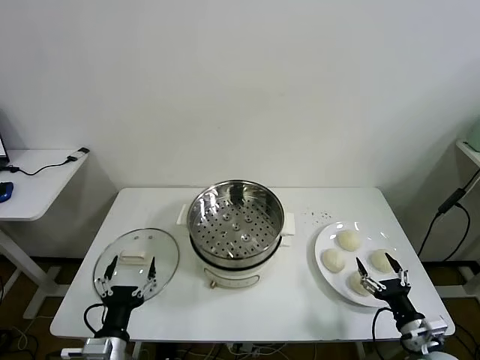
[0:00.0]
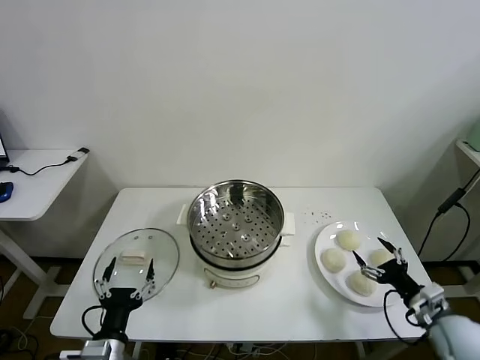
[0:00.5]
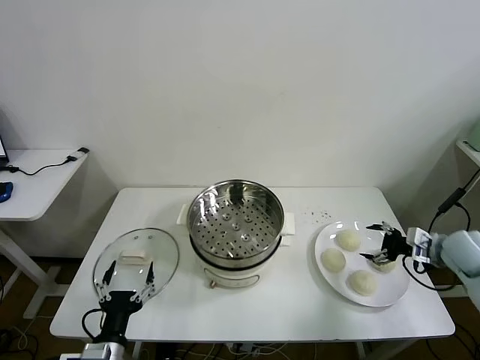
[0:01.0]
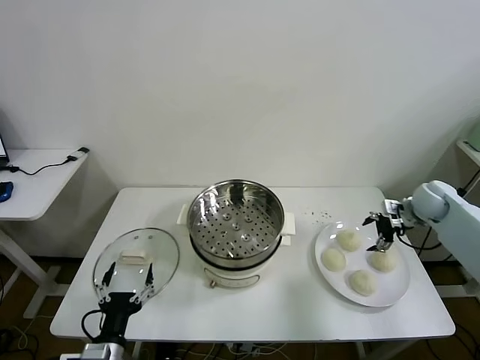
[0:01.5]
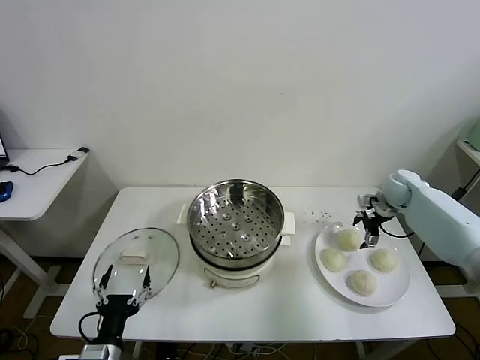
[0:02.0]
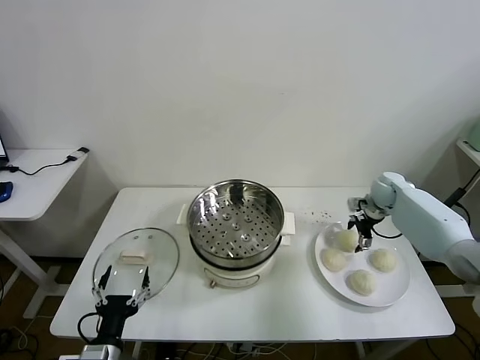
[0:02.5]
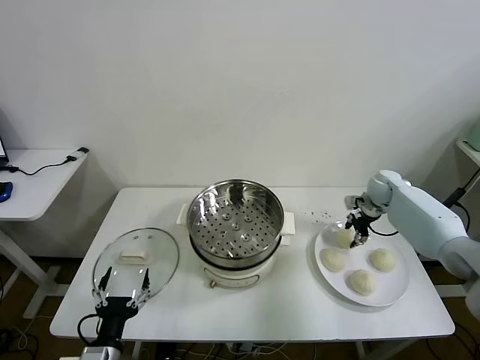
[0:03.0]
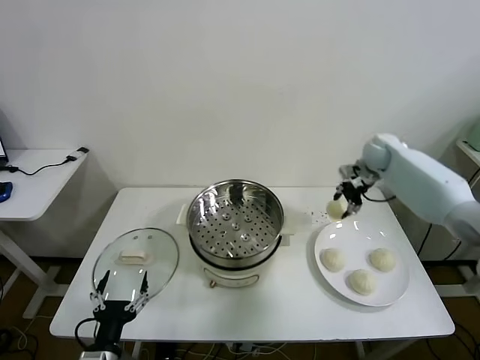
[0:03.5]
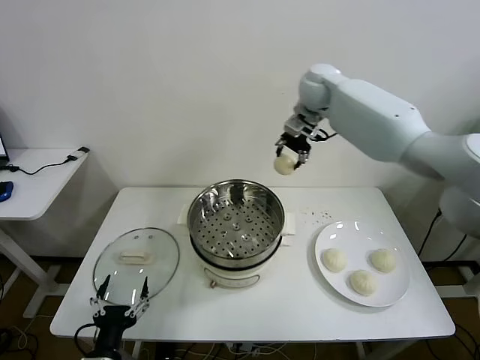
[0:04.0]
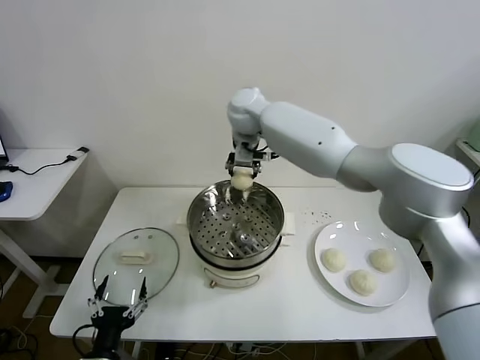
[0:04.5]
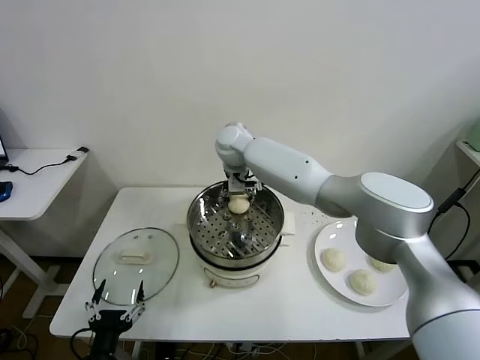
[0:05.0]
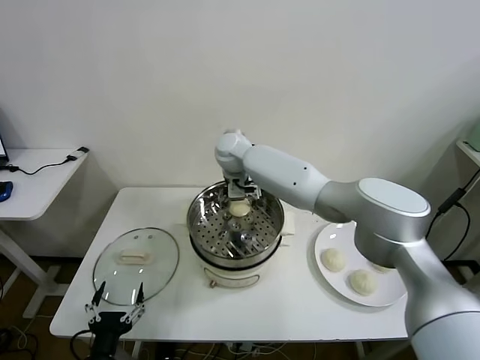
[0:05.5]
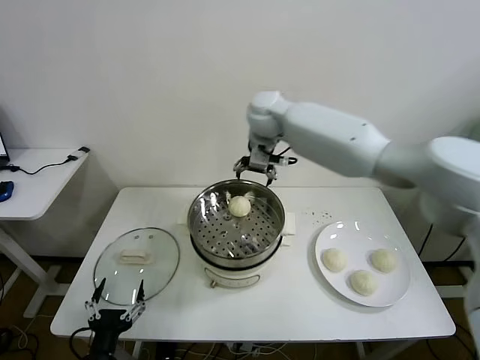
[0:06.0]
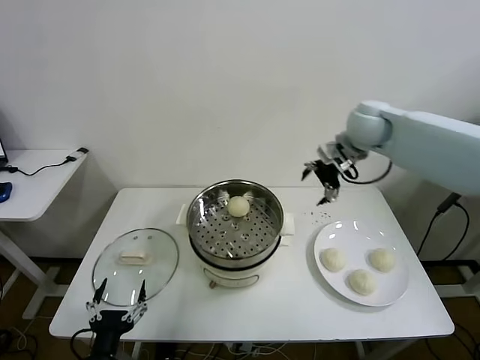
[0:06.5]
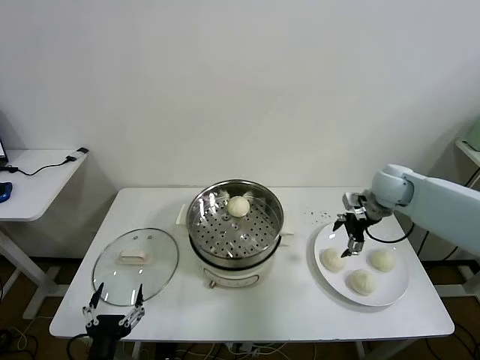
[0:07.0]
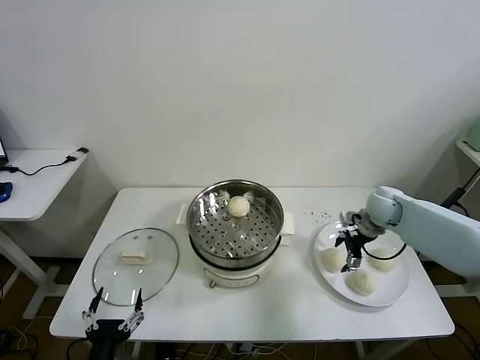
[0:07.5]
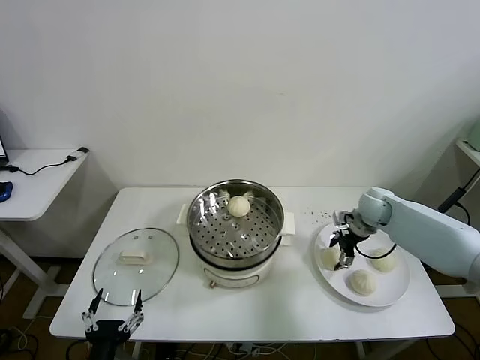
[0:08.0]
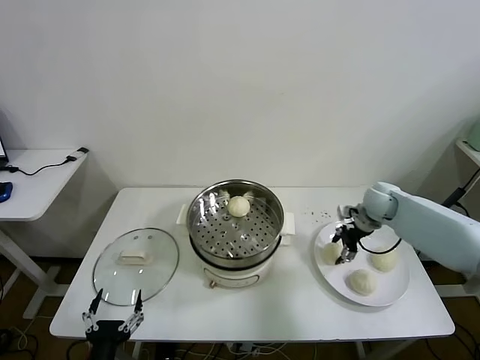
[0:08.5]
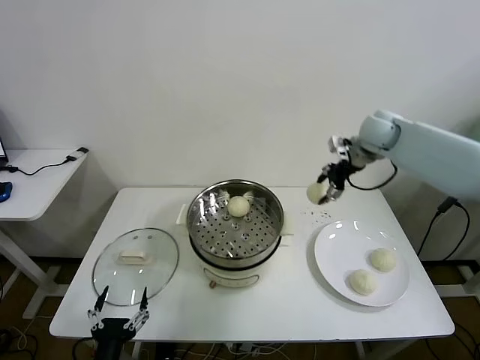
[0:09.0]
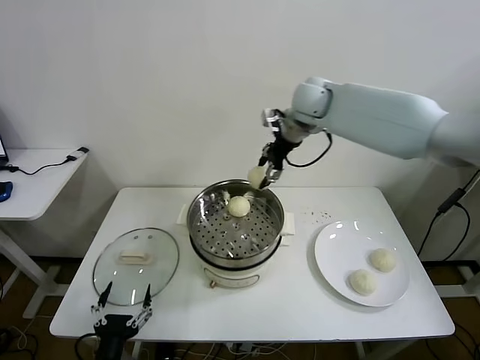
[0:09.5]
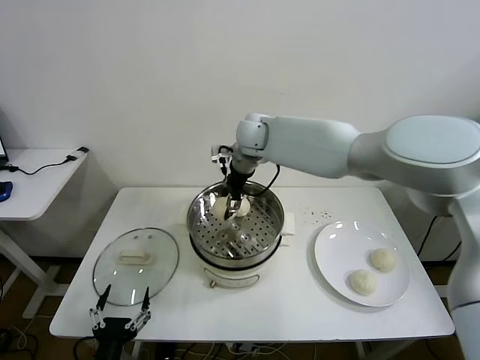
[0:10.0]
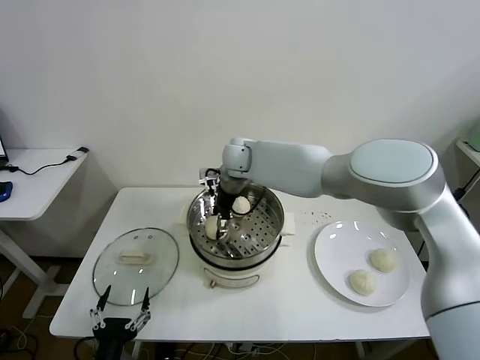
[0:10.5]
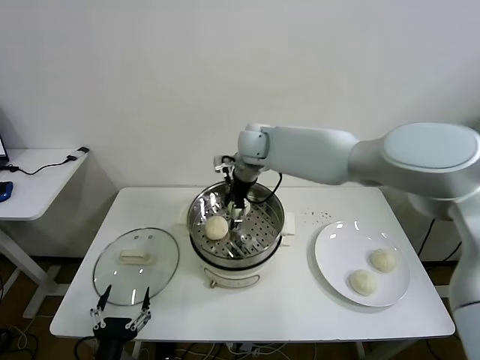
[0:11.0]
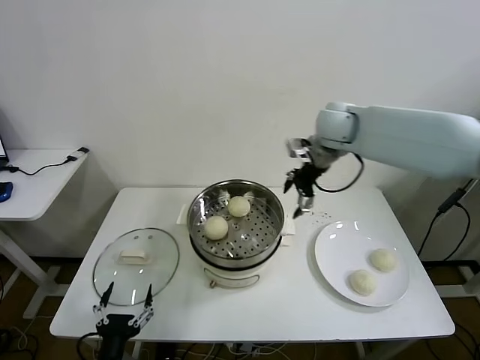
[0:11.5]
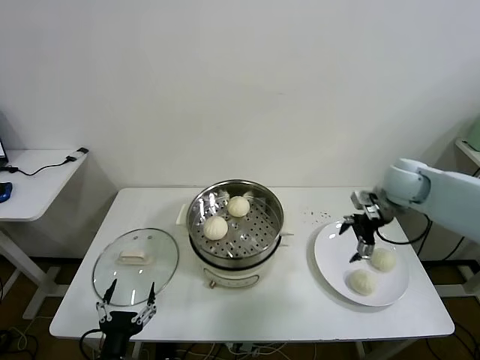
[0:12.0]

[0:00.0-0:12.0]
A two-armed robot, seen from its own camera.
Task of the whole recording: take steamed baozi put them in steamer then cover it.
Step, 0:00.0 to 0:02.5: Grasp the baozi in the plate with right gripper.
Step, 0:03.0 to 0:05.0: Place the baozi on the steamer with right gripper.
Step, 0:05.5 to 0:08.5: Grasp the baozi in the plate with right gripper.
Step, 0:09.0 to 0:11.0: Place the baozi on the steamer with right gripper.
0:02.0 to 0:04.0: The right gripper goes roughly 40 cm to the left and upward, and closes.
0:04.0 to 0:06.0: The right gripper reaches about 15 cm to the left, then returns, and opens.
0:06.0 to 0:08.0: The right gripper is displaced downward and to the right by about 35 cm, and closes.
0:08.0 to 0:10.0: The right gripper heads to the left and upward, covering roughly 40 cm.
0:10.0 to 0:12.0: The right gripper heads to the right, covering some 35 cm, and opens up.

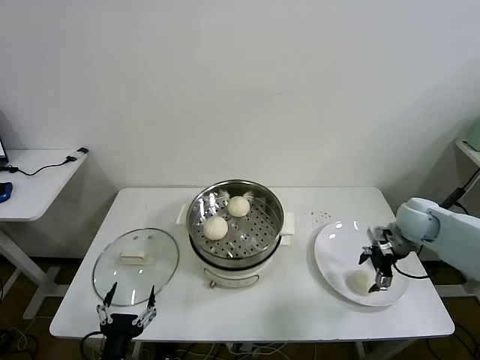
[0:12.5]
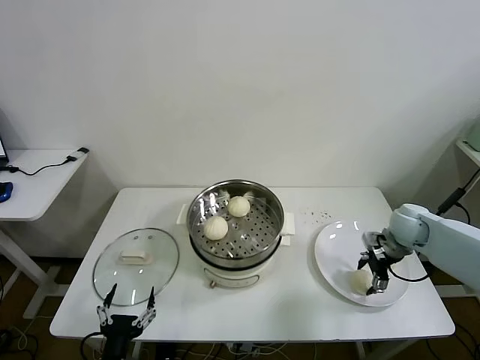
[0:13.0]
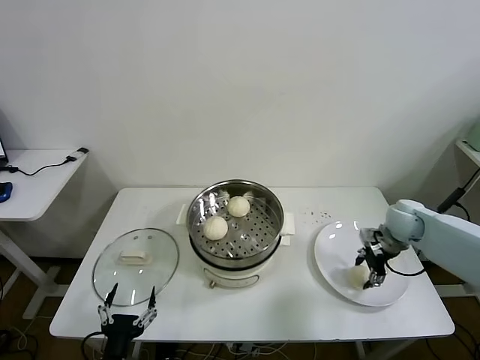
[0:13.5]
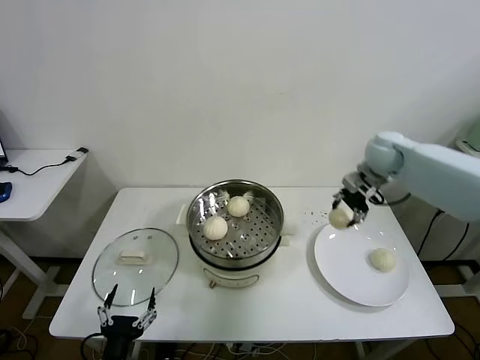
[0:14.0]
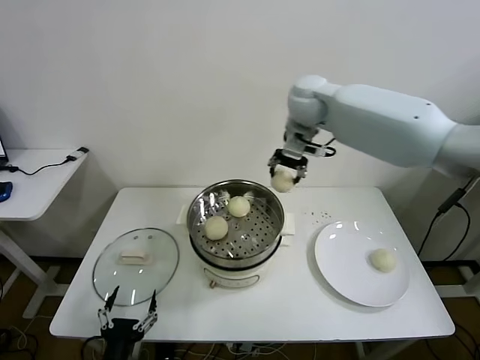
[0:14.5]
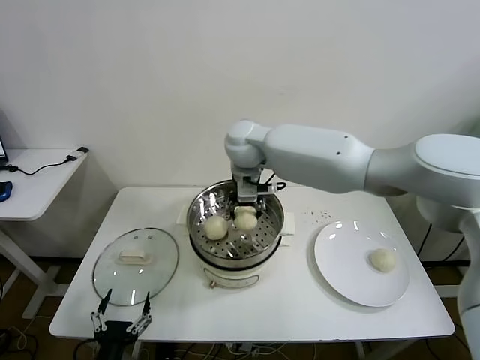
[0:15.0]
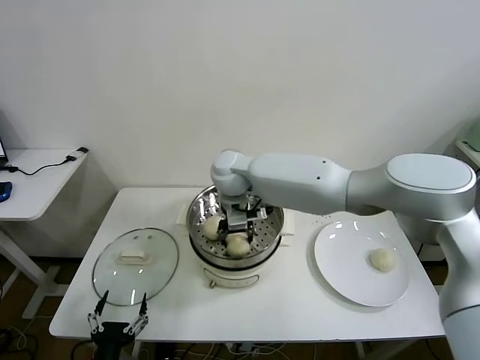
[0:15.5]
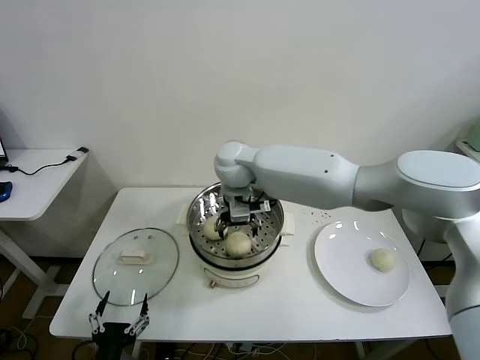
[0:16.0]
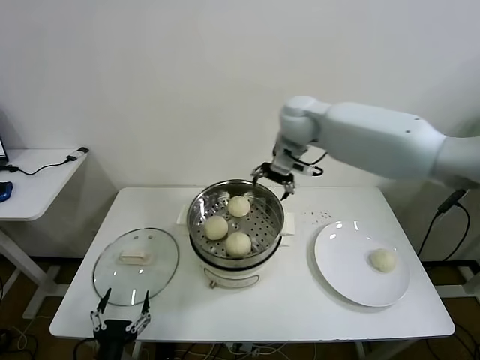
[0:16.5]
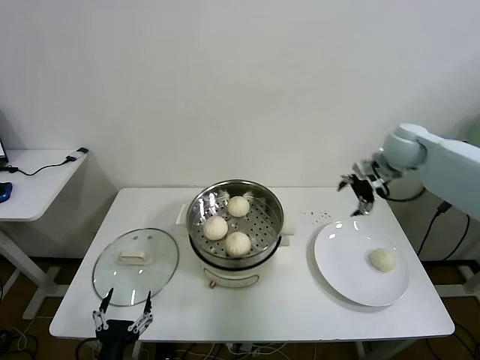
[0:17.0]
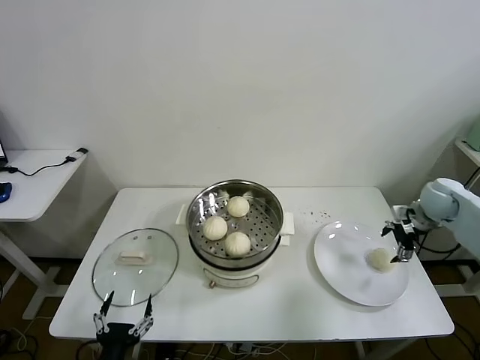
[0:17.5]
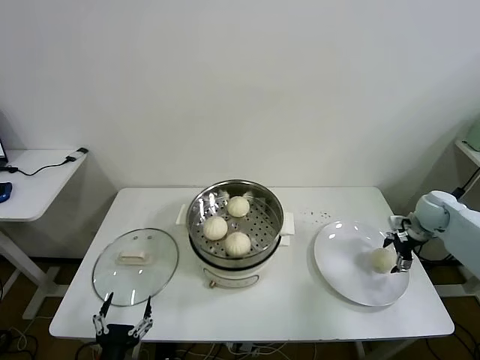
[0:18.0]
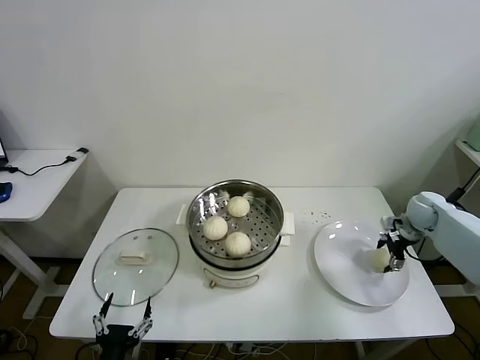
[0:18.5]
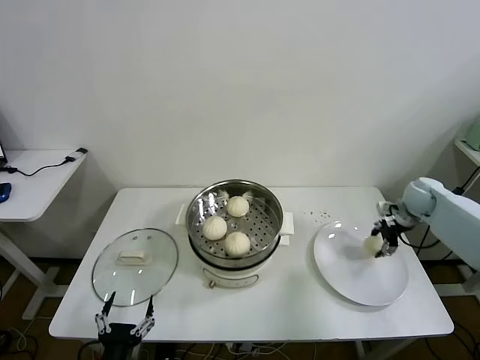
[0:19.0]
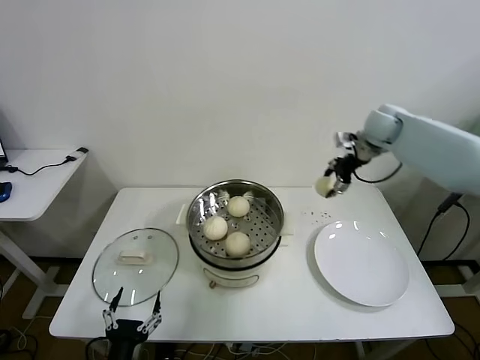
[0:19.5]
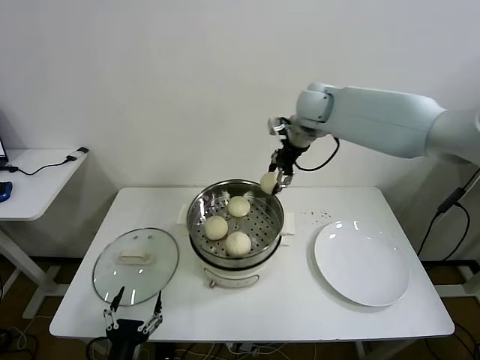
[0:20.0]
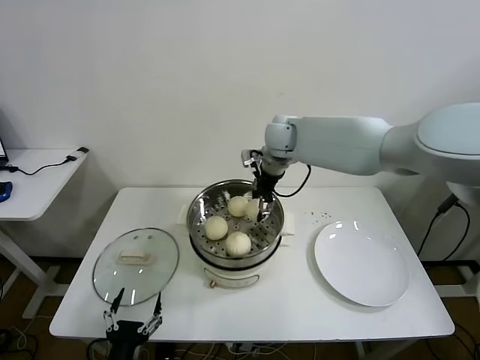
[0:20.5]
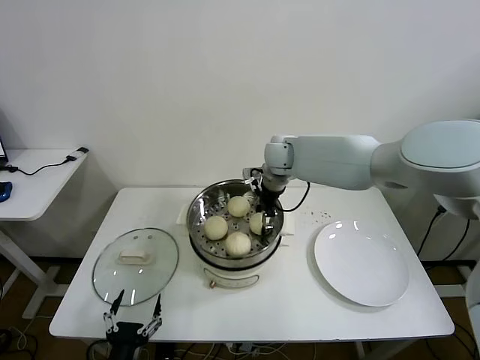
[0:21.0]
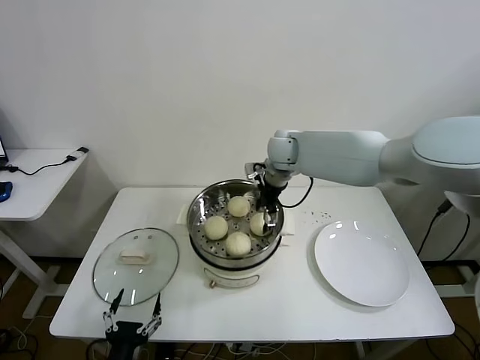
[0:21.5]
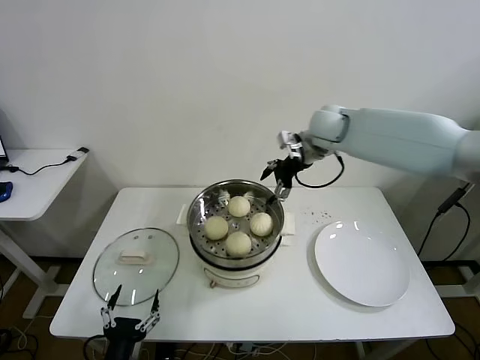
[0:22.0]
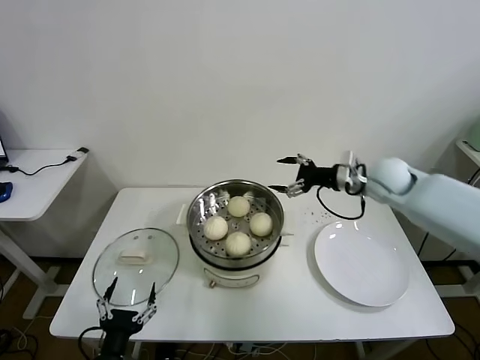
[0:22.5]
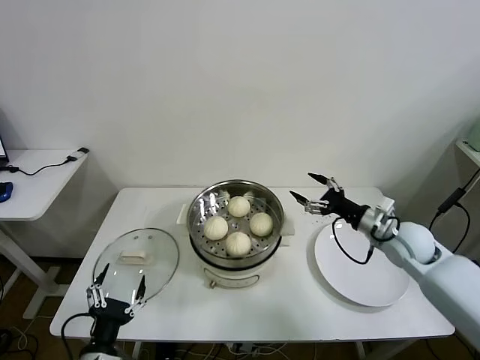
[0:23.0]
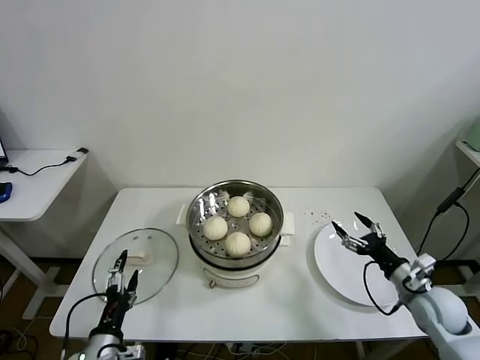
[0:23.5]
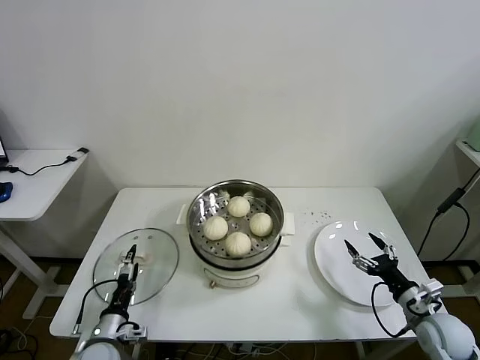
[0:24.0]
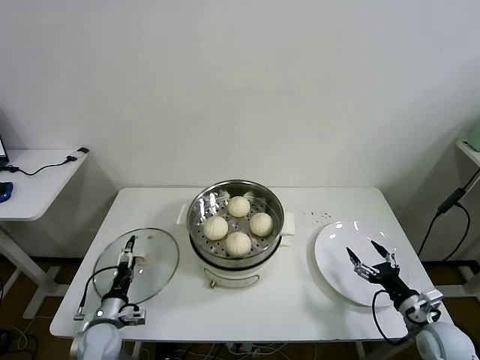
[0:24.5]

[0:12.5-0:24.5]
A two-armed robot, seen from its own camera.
Task of the whole recording: take steamed baozi put them in steamer then cover it.
Step, 0:13.5 to 0:16.0: Place the baozi on the steamer with right gripper.
Step, 0:16.5 to 0:18.5: Grasp the baozi in the plate with right gripper.
Step, 0:19.0 to 0:21.5: Place the baozi on the steamer with right gripper.
0:12.5 to 0:14.5: The right gripper moves to the left, upward and forward, some 40 cm, and closes up.
0:14.5 to 0:16.5: The right gripper goes to the left and returns, roughly 15 cm each way, and opens.
0:16.5 to 0:18.5: The right gripper goes roughly 40 cm to the right and downward.
0:18.5 to 0:20.5: The right gripper travels to the left and upward by about 40 cm, and closes up.
0:20.5 to 0:22.5: The right gripper shifts some 25 cm to the right and backward, and opens up.
0:22.5 to 0:24.5: The right gripper shifts about 35 cm backward and downward, while the left gripper goes approximately 20 cm forward, downward and to the left.

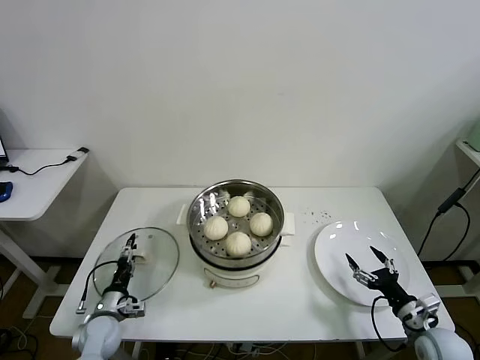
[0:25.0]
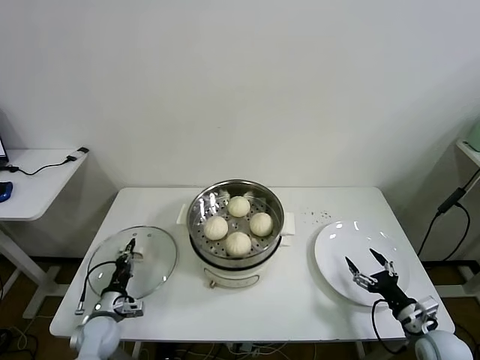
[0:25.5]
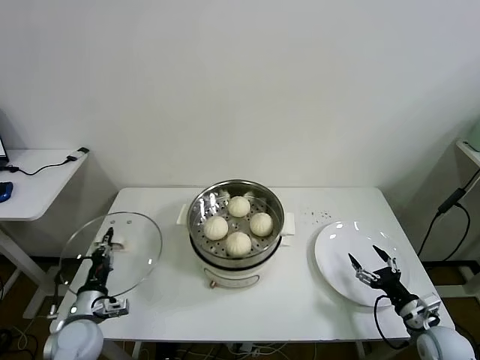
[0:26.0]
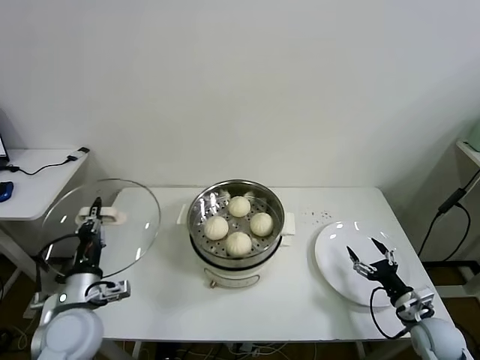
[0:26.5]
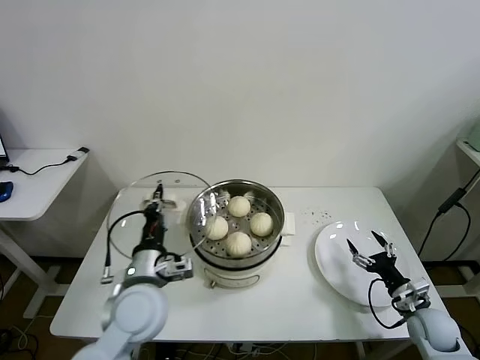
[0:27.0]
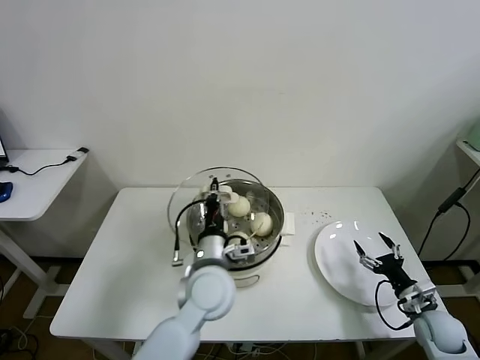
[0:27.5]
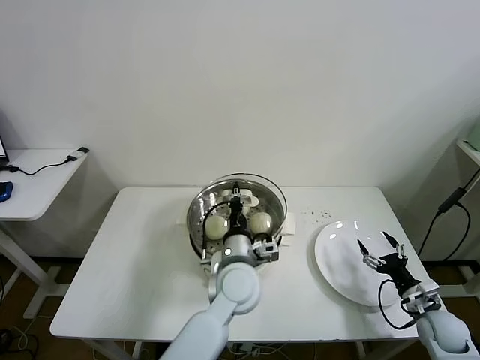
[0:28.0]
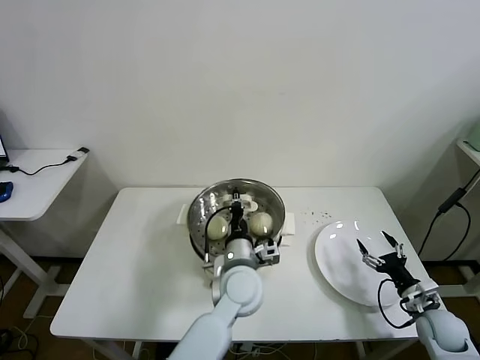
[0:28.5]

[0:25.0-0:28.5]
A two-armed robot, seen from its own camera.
Task of the whole recording: take steamed baozi put them in steamer then cover it.
0:25.0 to 0:27.0: The left gripper heads upward and to the right, covering roughly 30 cm, and closes its fingers.
0:27.0 to 0:28.5: The left gripper goes about 20 cm to the right.
